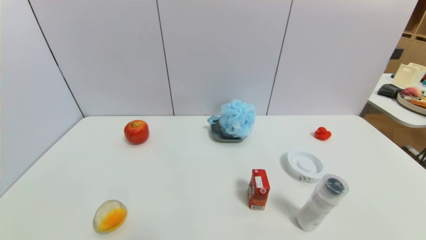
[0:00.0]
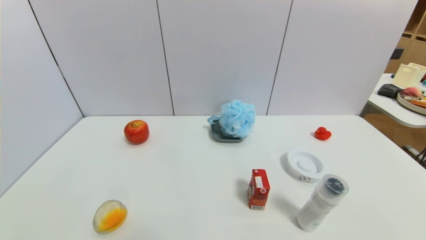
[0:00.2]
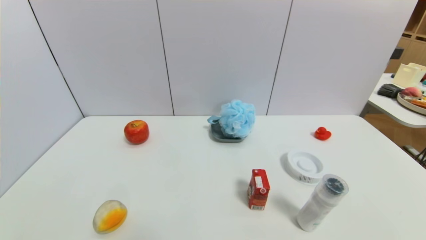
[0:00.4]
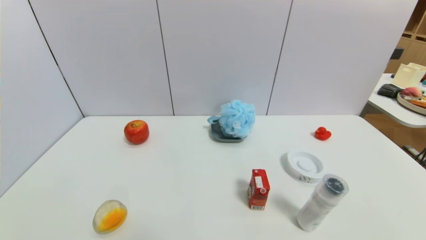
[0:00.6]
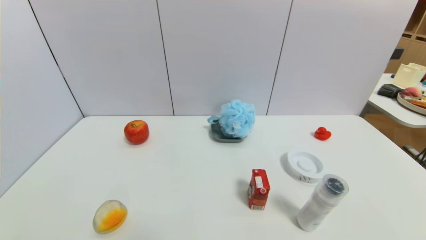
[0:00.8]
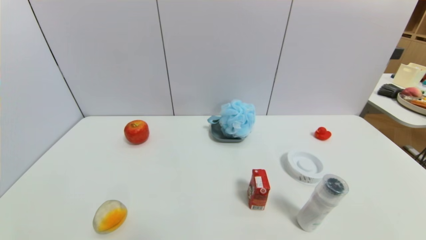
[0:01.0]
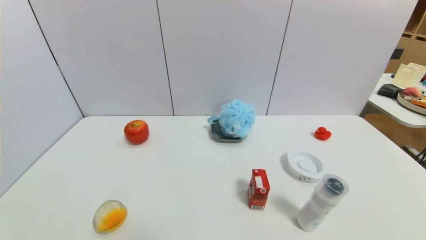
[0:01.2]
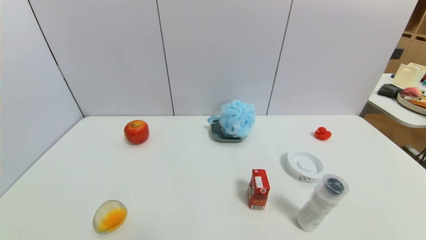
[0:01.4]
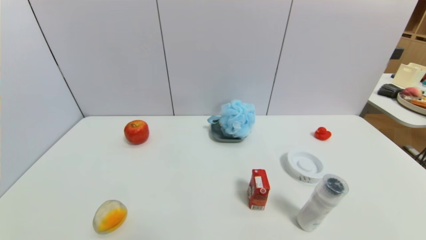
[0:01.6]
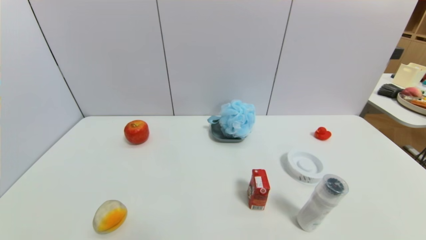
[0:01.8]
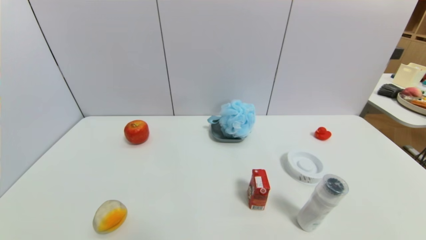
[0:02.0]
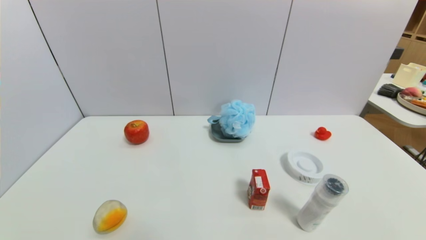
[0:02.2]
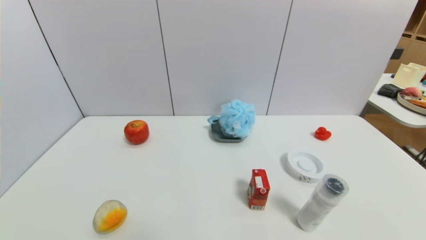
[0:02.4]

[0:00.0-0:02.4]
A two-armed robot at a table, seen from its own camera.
Task of the whole recording: use a gripper to pick the target object and place on the dish.
0:01.2 to 0:02.4: Both grippers stay put.
